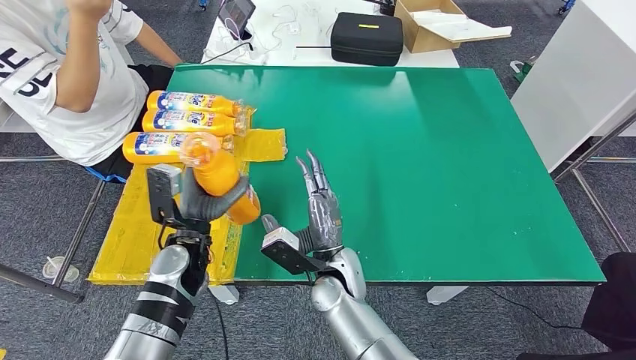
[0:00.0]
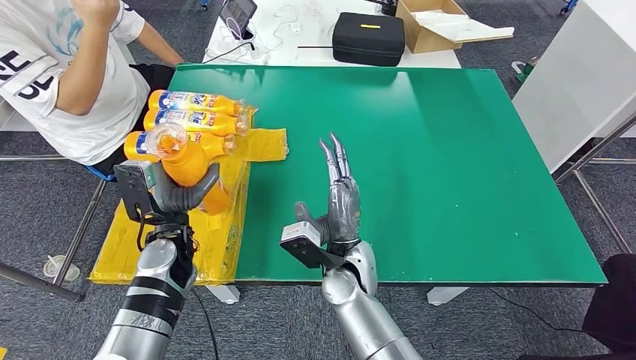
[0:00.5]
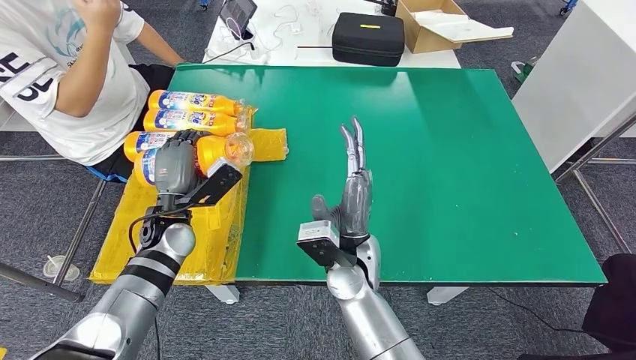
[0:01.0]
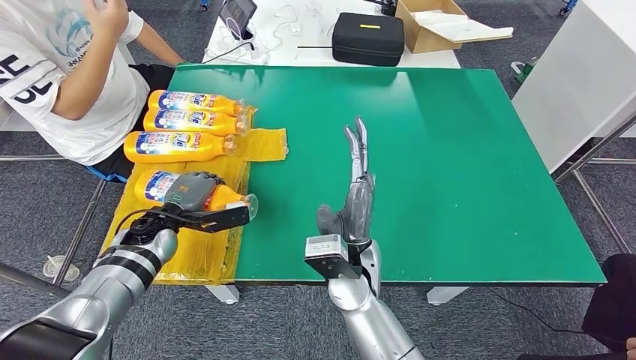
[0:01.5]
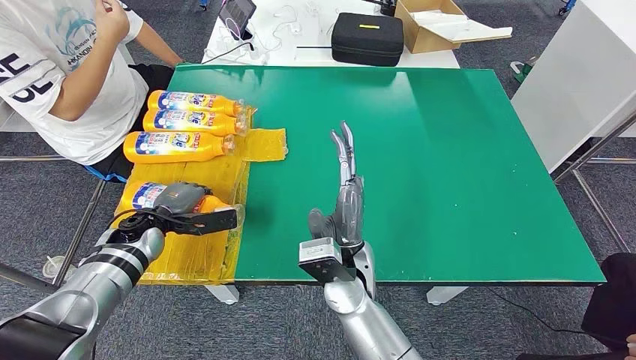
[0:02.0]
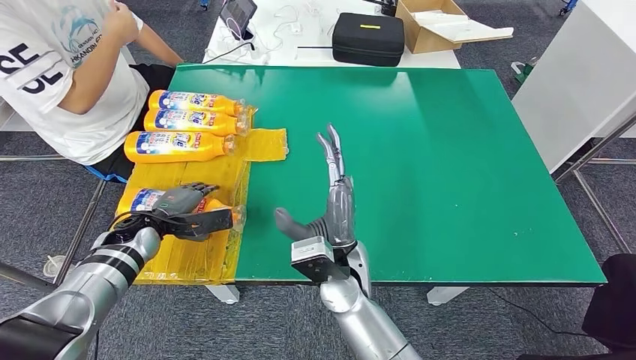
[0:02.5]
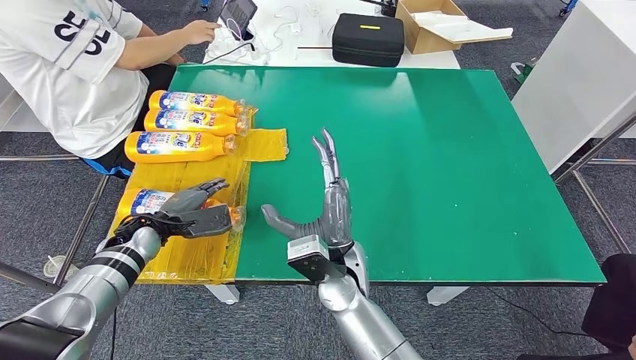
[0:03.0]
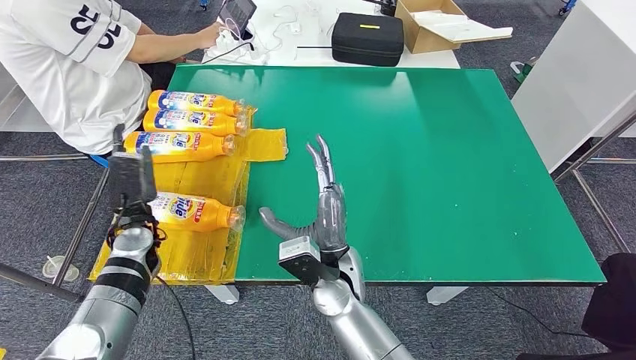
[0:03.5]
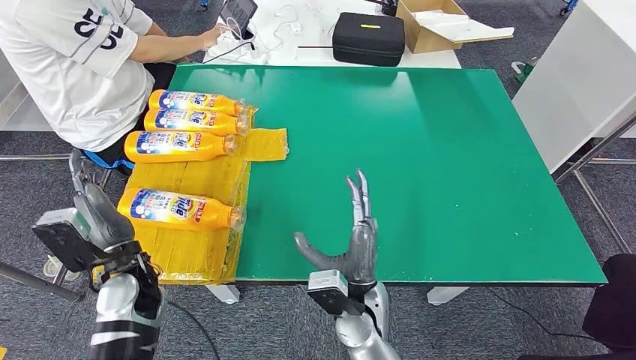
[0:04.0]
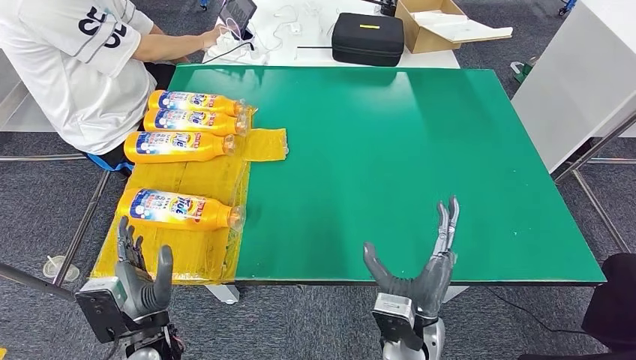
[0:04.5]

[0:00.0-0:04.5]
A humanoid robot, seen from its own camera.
Step, 0:02.0 to 0:04.5: Flip the fast-moving consumer goods bottle to the front side.
0:00.0 to 0:02.0: The left hand is displaced to the left and forward by approximately 15 cm, while the right hand travels upward by about 5 cm.
